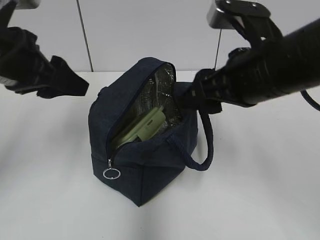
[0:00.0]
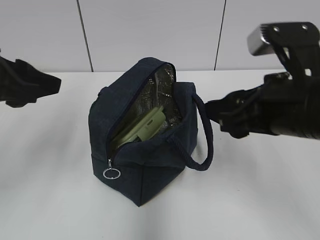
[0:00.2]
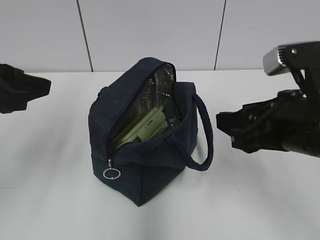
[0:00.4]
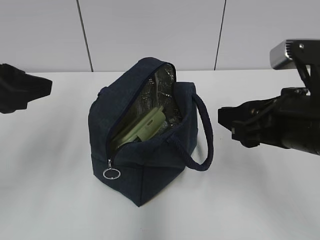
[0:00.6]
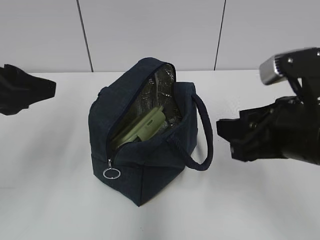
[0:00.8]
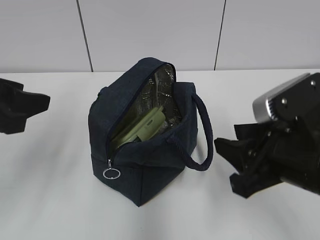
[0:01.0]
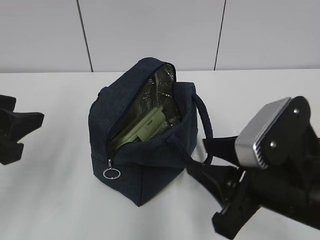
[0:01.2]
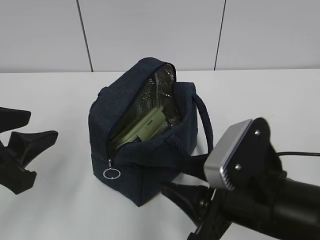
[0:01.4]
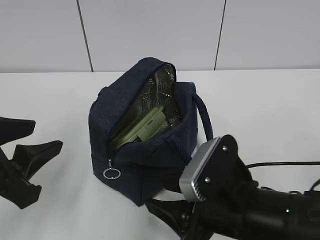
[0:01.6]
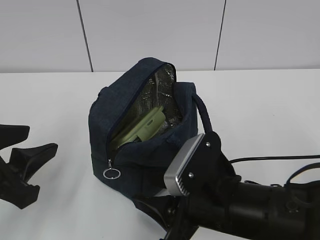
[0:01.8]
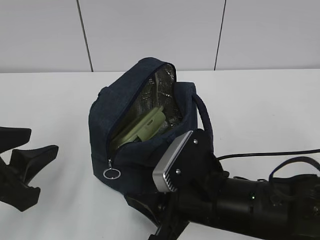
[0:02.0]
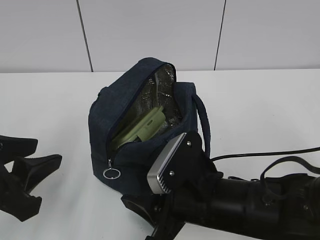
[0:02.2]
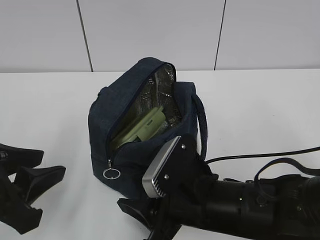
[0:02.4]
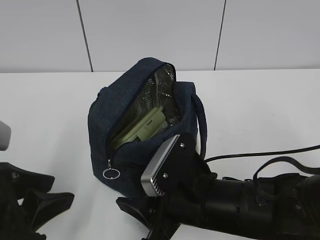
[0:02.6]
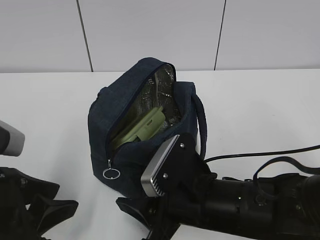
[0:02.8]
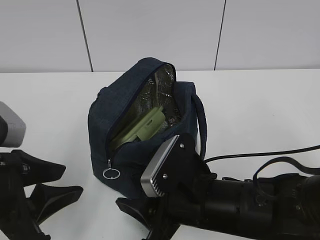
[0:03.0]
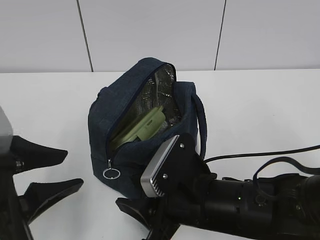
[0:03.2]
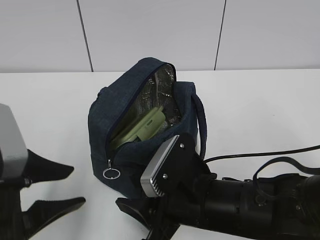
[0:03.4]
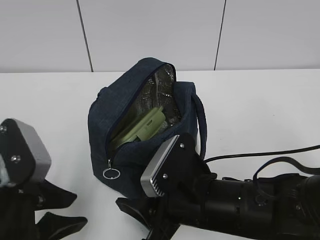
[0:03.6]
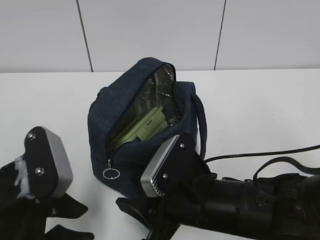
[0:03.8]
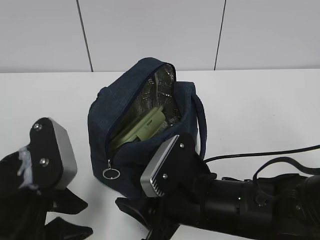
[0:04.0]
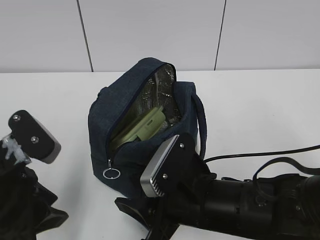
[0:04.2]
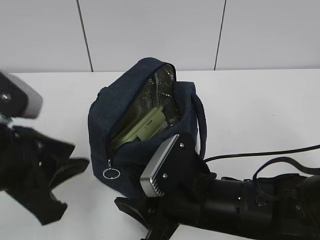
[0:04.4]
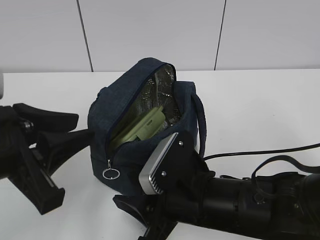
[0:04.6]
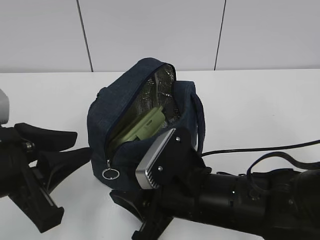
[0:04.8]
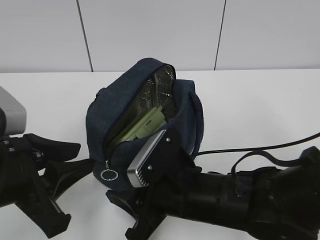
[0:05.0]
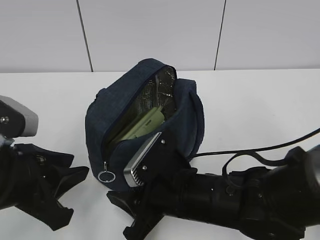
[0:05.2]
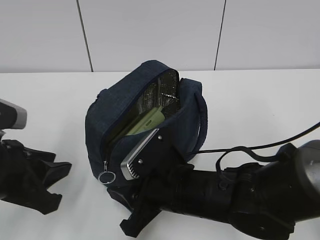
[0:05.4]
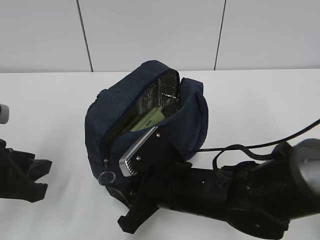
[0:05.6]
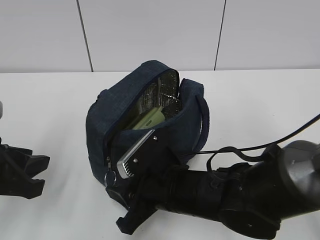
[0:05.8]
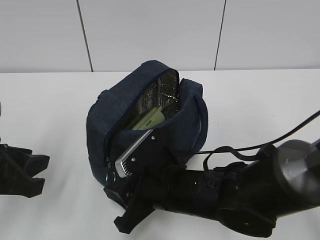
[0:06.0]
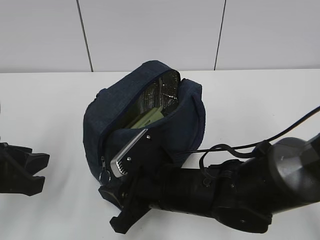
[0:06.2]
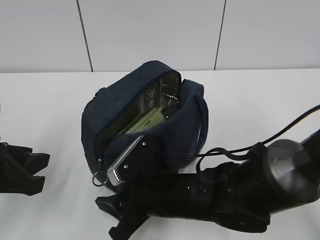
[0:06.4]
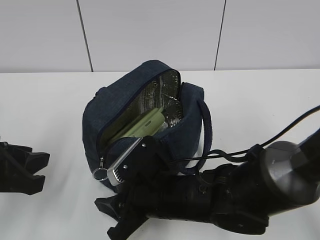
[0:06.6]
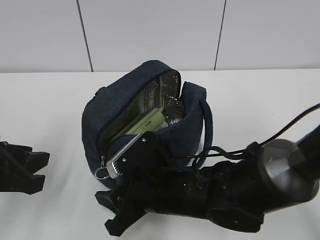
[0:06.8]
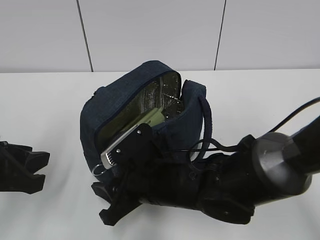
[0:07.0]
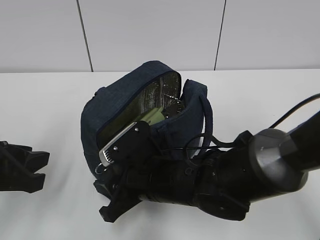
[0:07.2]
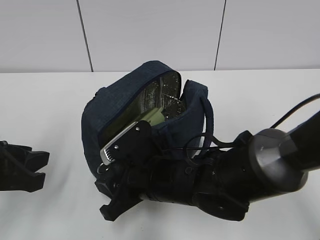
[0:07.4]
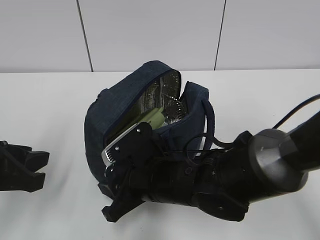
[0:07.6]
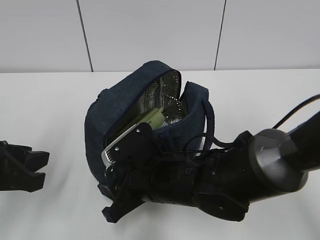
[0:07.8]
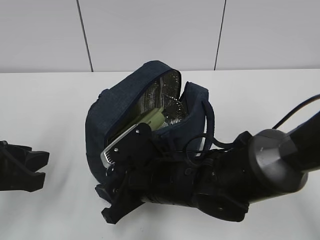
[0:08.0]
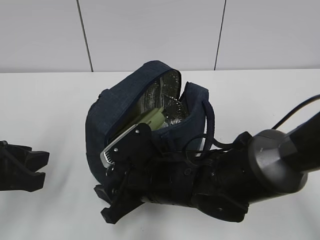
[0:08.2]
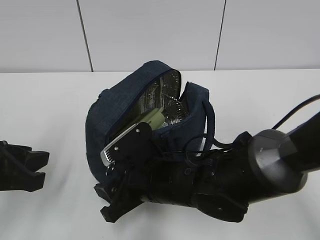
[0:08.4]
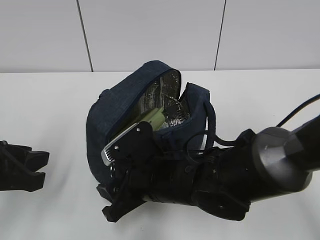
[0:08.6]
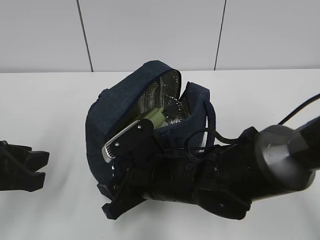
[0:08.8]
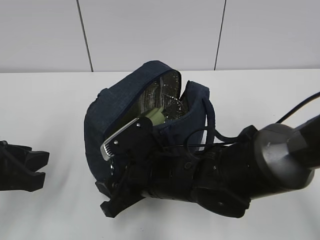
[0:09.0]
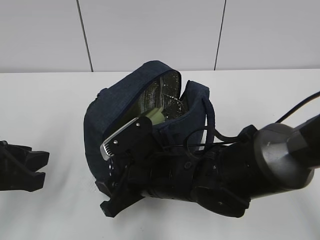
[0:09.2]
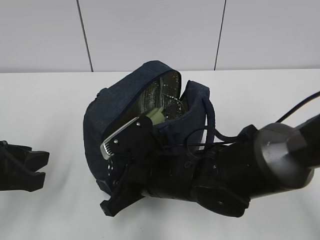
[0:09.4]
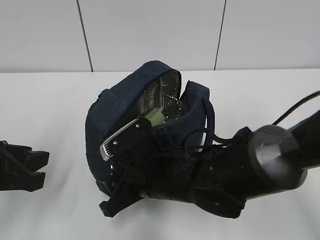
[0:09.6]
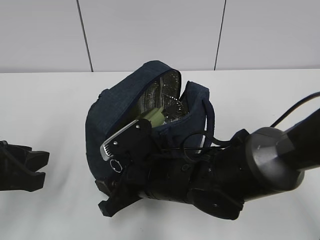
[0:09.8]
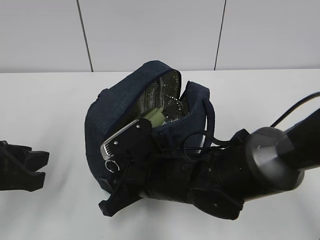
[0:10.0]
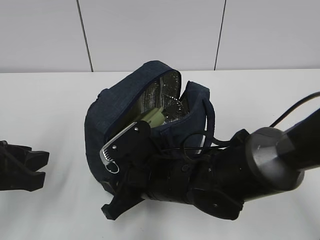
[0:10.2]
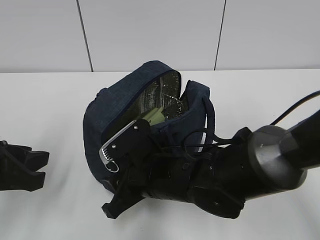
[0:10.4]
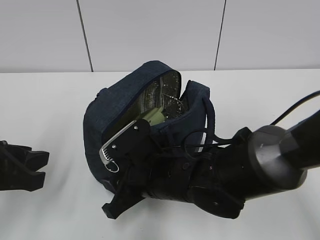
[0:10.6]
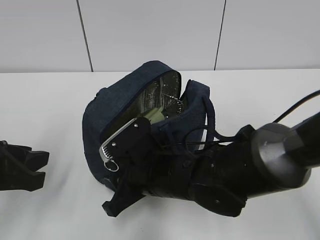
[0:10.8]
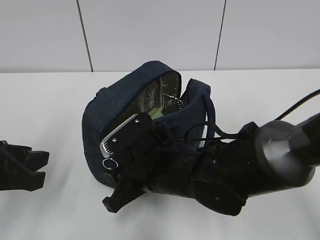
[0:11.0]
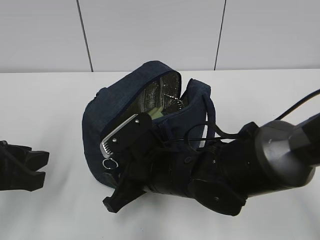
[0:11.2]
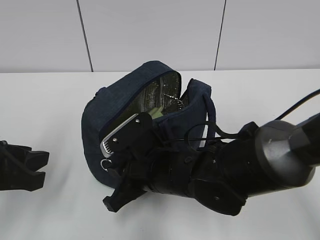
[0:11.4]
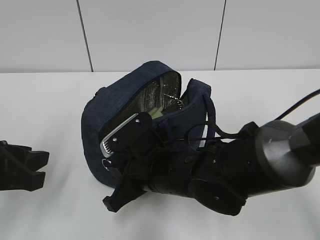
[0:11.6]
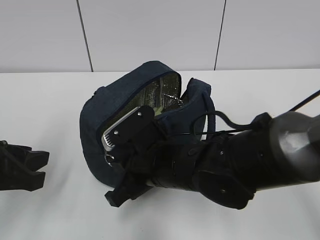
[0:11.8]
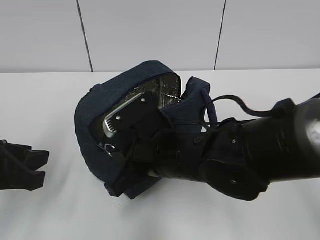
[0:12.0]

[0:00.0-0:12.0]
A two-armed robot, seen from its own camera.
0:00.0 to 0:01.6: The left gripper travels backward and downward by about 15 cm, while the right gripper travels downward and backward by approximately 15 cm.
0:04.4 to 0:06.0: The right gripper ends up approximately 5 cm from where it was. Meanwhile the left gripper is displaced to the left by some 5 cm.
0:06.0 to 0:07.6: There are only small adjustments of the grippers.
0:07.6 to 0:10.4: Neither gripper changes place.
0:10.4 to 0:12.0: The right gripper is displaced upward by about 5 cm, and closes up.

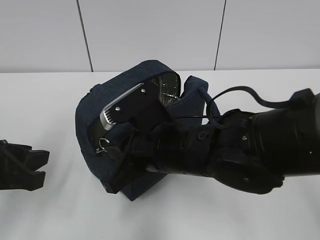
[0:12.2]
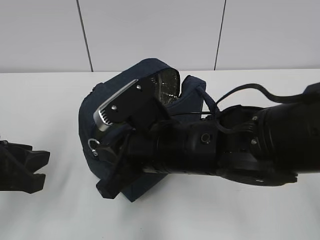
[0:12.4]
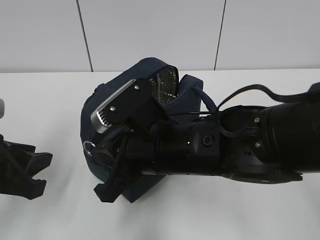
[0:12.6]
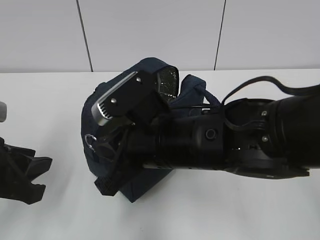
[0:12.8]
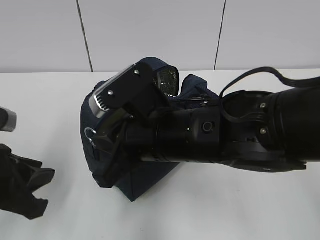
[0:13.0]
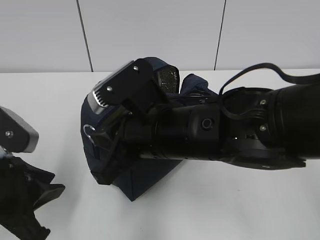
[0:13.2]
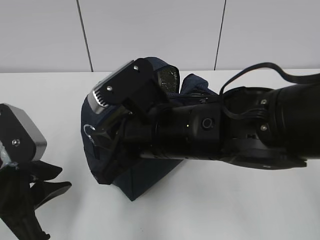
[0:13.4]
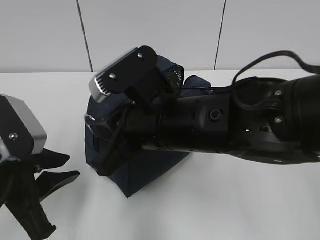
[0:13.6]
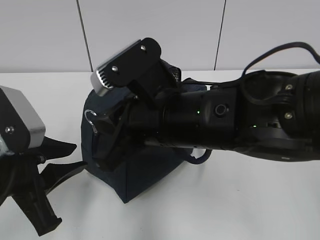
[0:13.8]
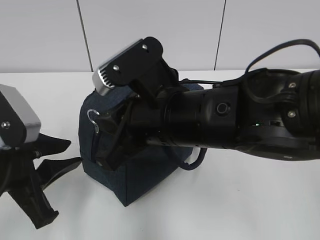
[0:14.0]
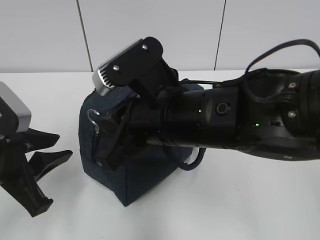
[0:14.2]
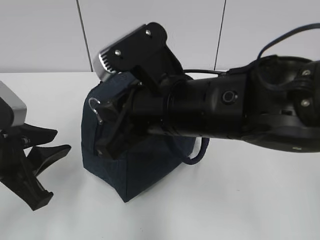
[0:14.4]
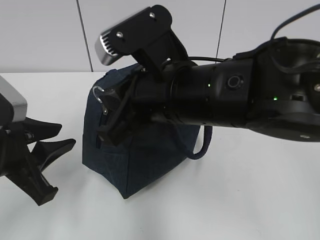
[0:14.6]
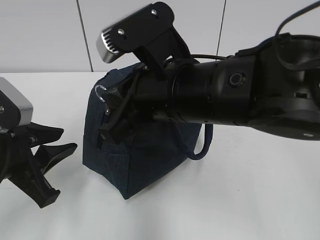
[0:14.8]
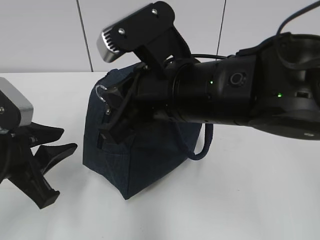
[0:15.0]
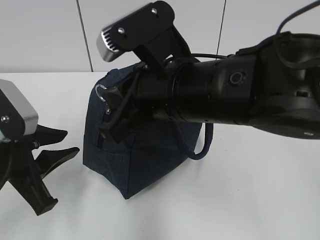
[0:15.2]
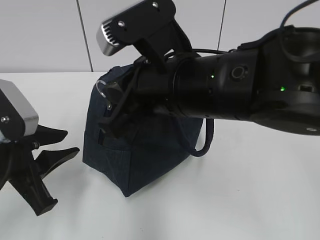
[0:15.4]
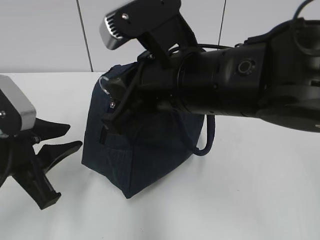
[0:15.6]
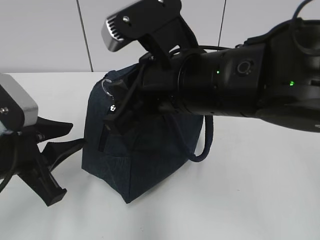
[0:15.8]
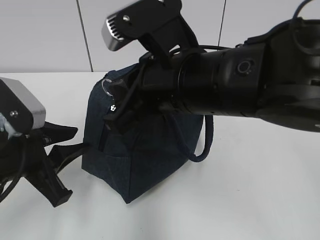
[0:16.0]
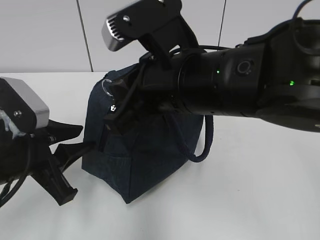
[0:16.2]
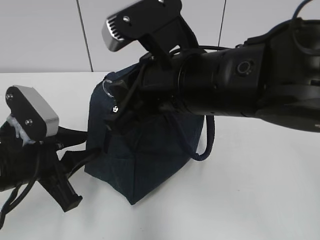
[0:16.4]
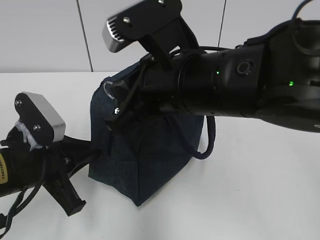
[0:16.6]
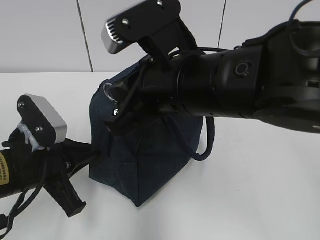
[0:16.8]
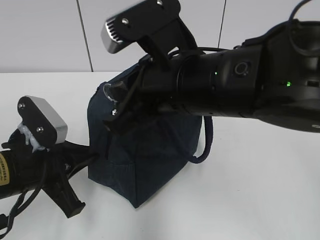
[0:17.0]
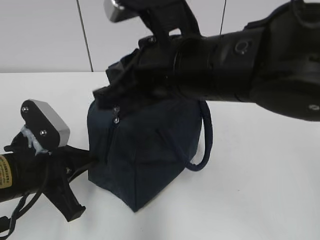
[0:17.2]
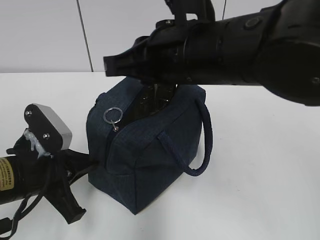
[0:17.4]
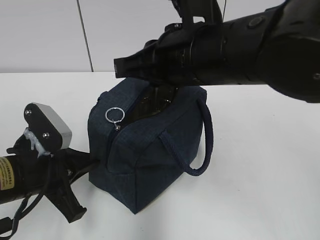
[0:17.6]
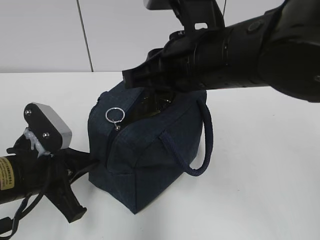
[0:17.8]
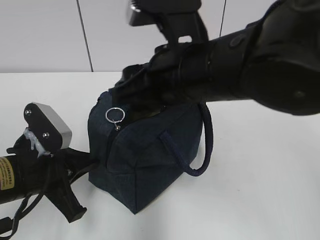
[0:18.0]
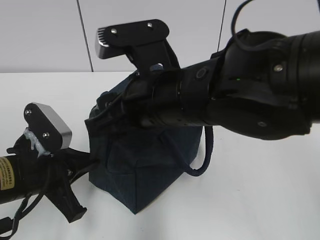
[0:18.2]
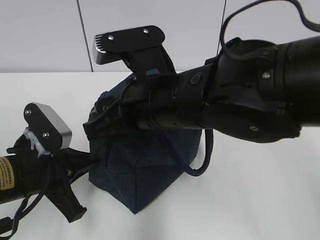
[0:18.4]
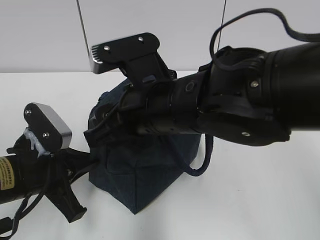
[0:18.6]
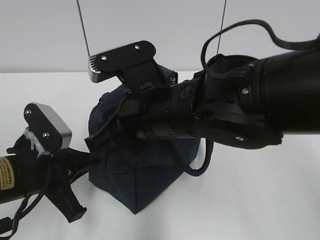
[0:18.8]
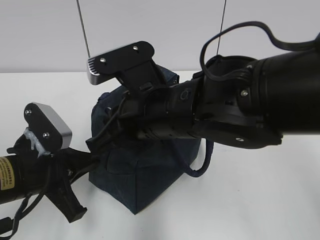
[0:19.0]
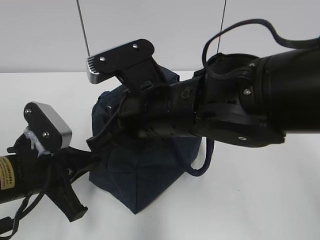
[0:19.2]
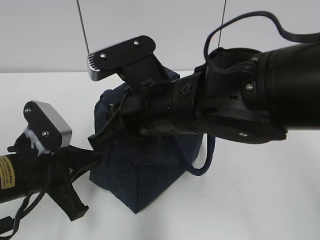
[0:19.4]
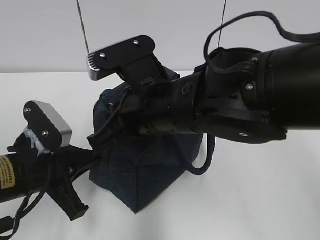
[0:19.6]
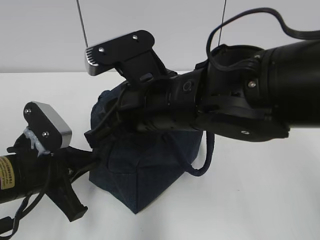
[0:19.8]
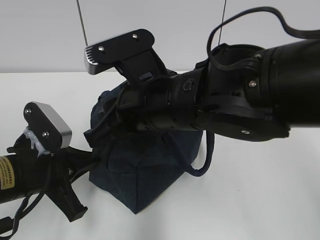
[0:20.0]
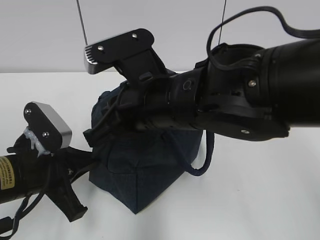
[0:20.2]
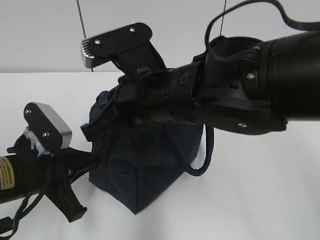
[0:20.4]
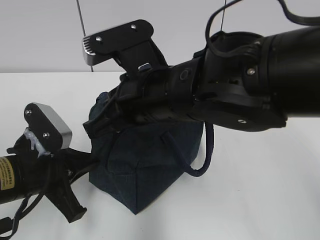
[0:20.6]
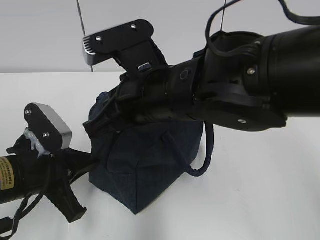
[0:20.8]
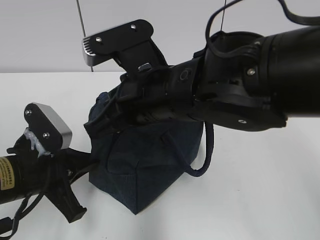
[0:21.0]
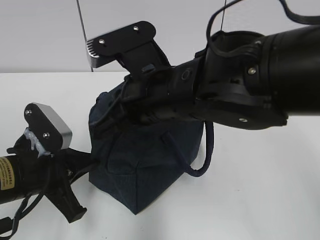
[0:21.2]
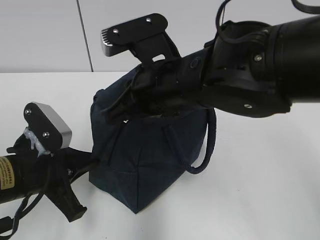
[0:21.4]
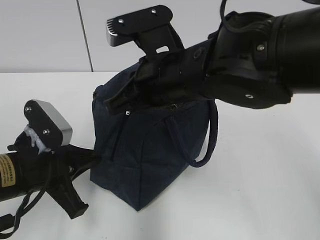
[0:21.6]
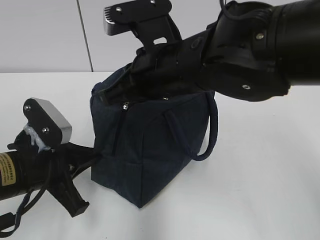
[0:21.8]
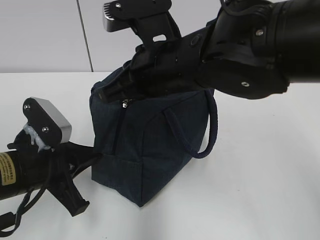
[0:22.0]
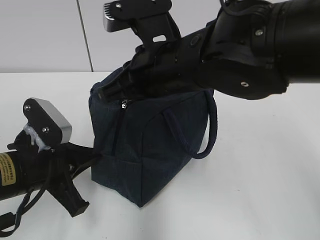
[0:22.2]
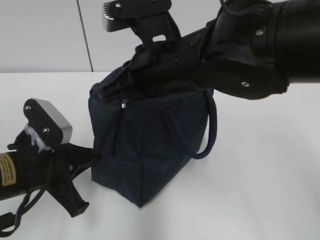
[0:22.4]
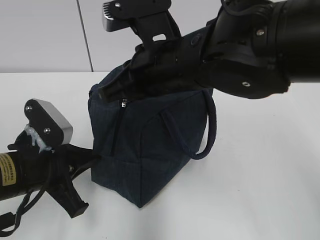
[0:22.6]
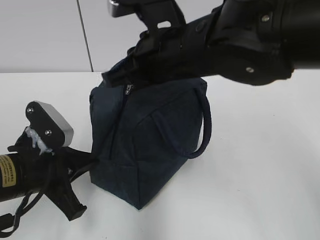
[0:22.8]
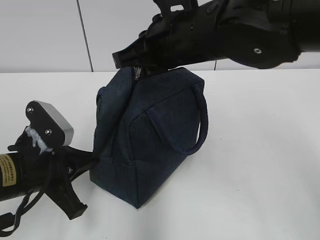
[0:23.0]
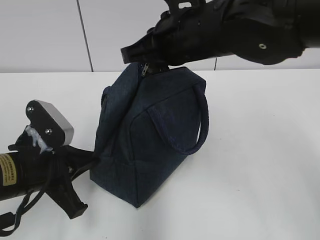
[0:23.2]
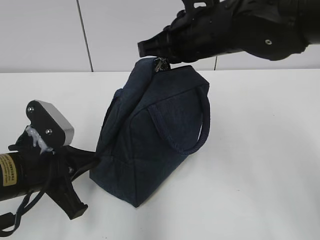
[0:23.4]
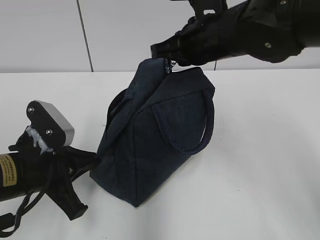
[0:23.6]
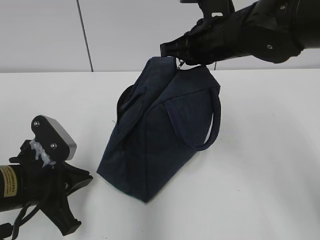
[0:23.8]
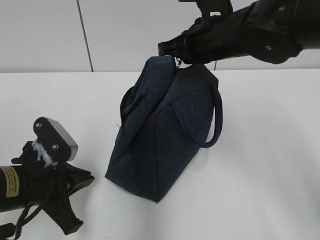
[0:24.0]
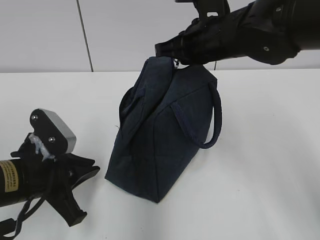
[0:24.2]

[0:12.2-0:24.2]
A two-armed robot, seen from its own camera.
Step, 0:12.2 to 0:17.0: Grab the lunch bag with your left hand.
0:12.2 to 0:13.8: The right gripper heads upward, covering roughly 5 cm.
0:15.2 to 0:16.6: The left gripper closes up.
0:16.6 to 0:18.2: The right gripper opens its fingers.
0:18.2 to 0:19.8: The right gripper closes its fingers.
0:19.8 to 0:21.2: The right gripper closes its fingers.
0:22.6 to 0:24.2: The right gripper moves forward and to the right, roughly 10 cm.
